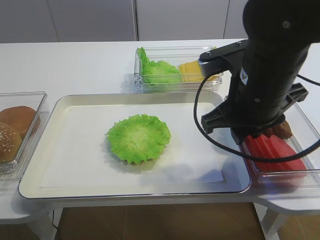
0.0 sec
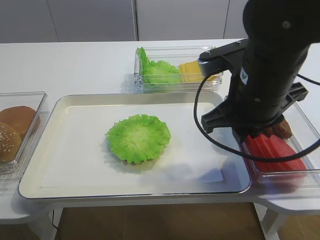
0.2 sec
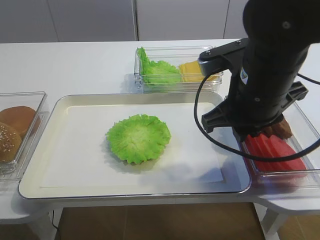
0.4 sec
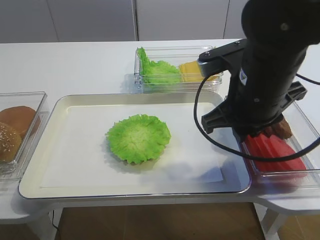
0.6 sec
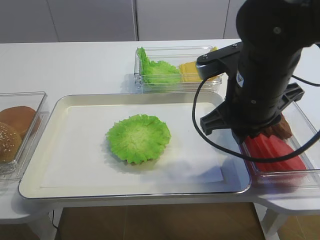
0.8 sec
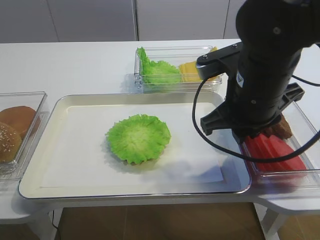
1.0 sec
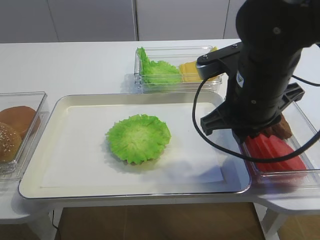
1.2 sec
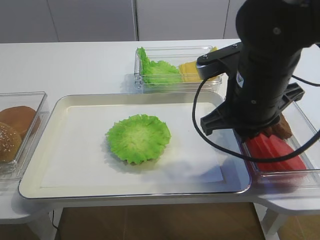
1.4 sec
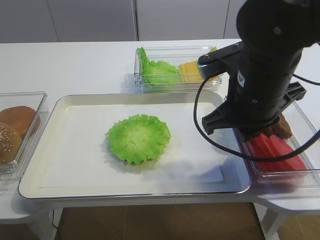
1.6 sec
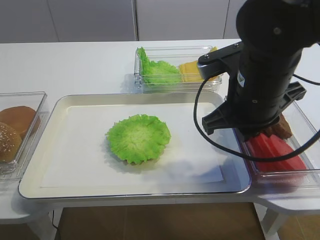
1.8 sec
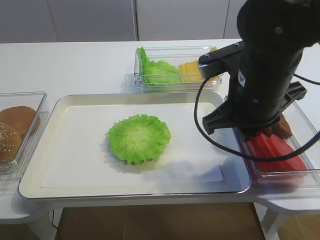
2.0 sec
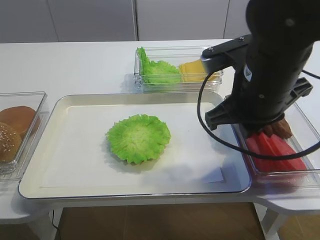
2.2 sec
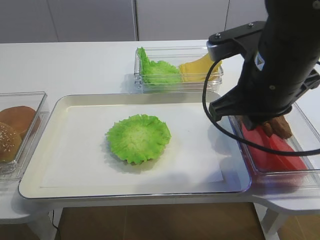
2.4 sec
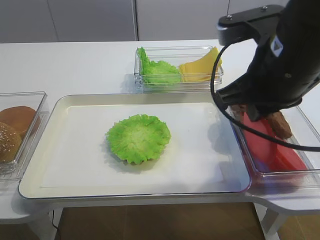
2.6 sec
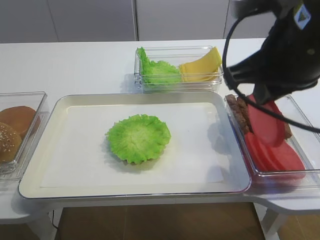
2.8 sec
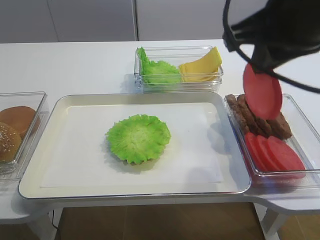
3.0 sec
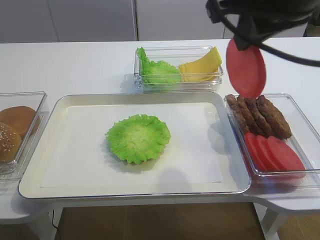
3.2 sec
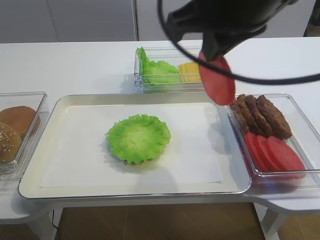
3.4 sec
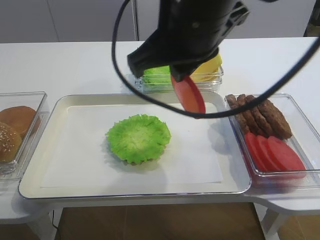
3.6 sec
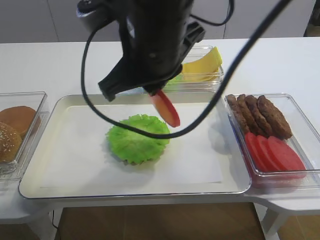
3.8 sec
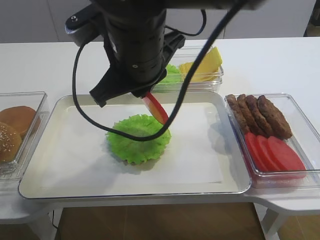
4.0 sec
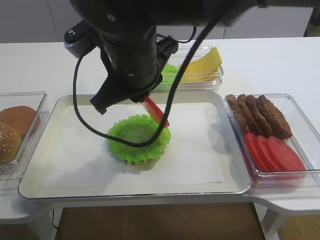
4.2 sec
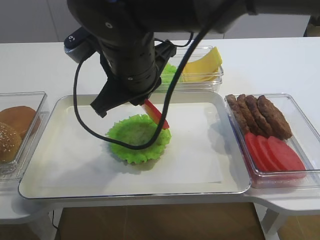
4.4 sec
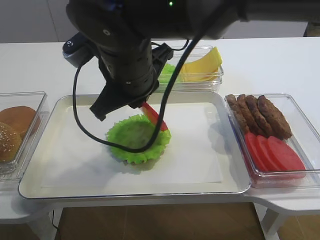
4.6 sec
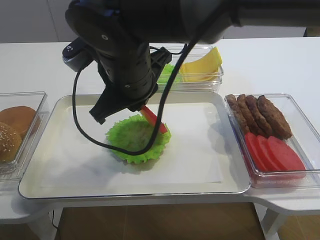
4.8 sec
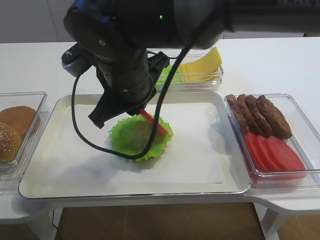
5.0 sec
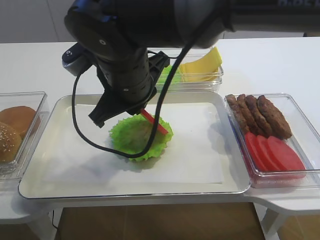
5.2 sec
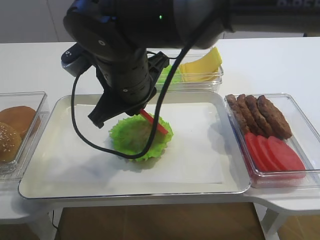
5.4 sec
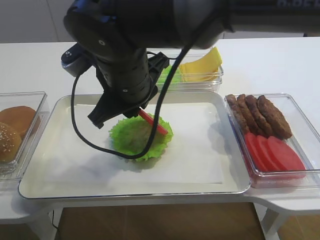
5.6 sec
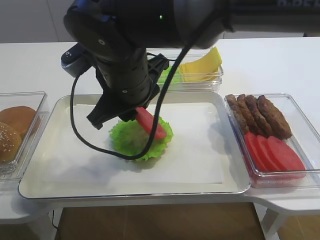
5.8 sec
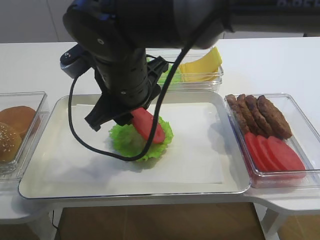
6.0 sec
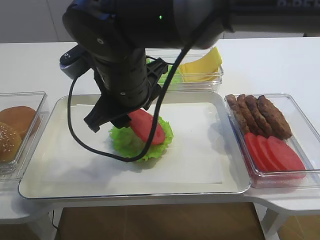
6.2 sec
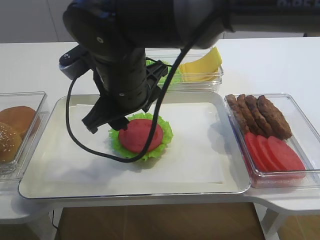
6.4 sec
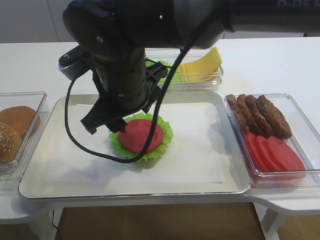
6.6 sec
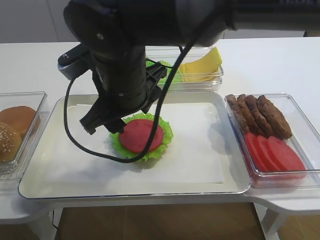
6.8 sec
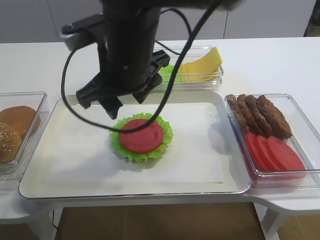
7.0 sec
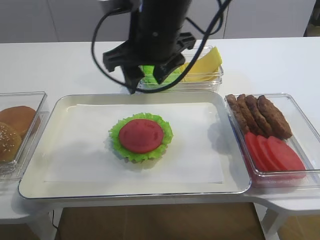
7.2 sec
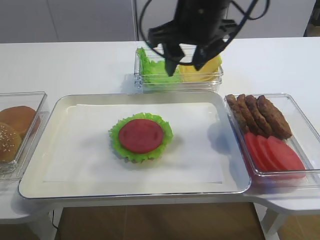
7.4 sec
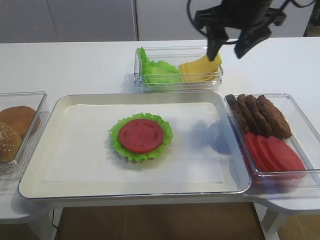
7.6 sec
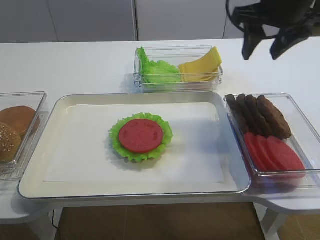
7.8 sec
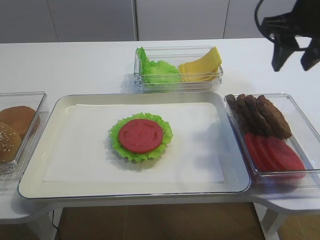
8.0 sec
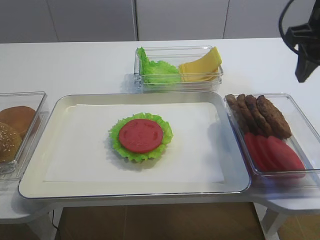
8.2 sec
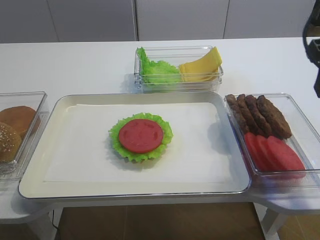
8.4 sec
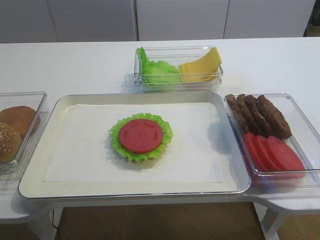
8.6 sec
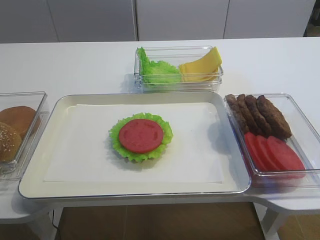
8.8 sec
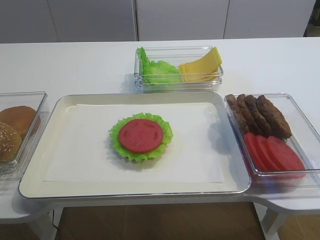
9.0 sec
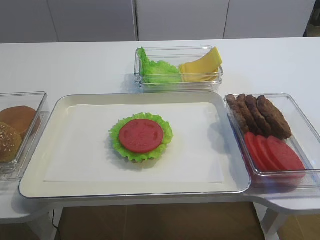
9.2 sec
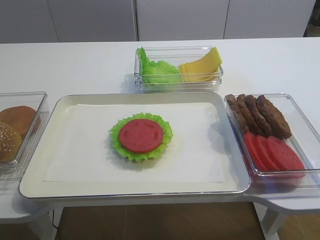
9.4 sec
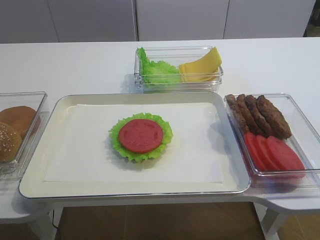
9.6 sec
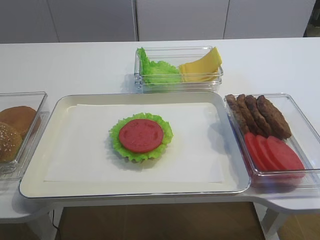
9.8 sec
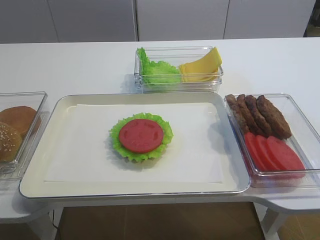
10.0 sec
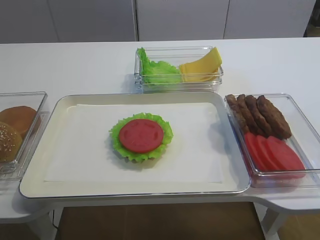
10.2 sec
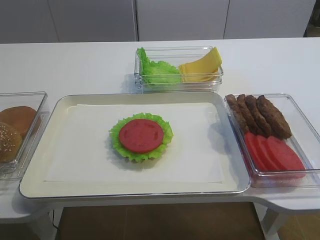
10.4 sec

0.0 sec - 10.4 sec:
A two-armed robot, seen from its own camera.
Step, 0.0 sec - 2.6 sec: Pick up the tomato slice with the right gripper.
Step, 2.8 sec - 7.4 sec: Place the tomato slice on the lettuce leaf with the right gripper.
0.0 sec - 1.4 sec: Neither gripper changes place.
1.4 sec - 3.0 sec: The right gripper is displaced upward by approximately 10 cm.
3.0 sec - 4.4 sec: The right gripper is displaced to the left and downward by approximately 20 cm.
4.4 sec - 6.0 sec: The right gripper opens up.
6.0 sec - 7.4 sec: The right gripper goes roughly 15 cm to the right, forward and upward.
7.4 sec - 9.0 sec: The right gripper goes some 30 cm backward and to the right.
9.0 sec - 10.4 sec: The right gripper is displaced backward and downward by some 15 cm.

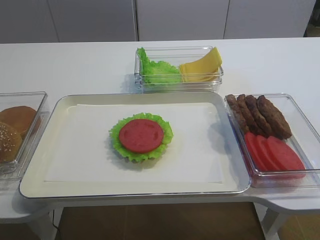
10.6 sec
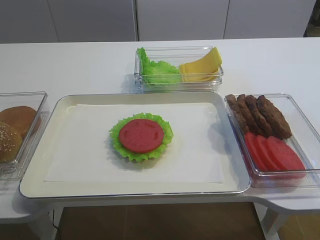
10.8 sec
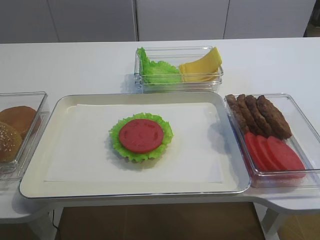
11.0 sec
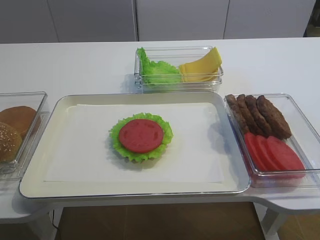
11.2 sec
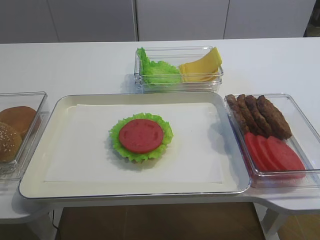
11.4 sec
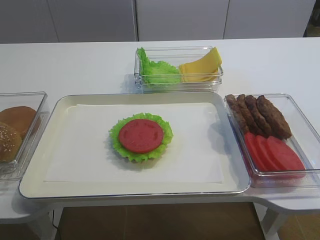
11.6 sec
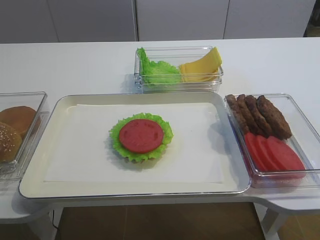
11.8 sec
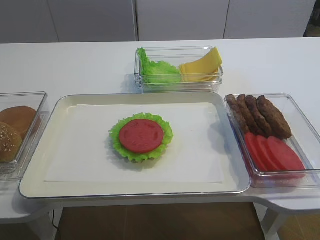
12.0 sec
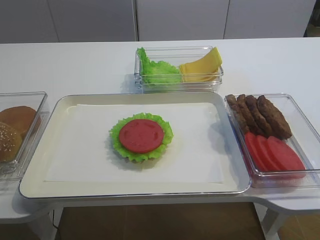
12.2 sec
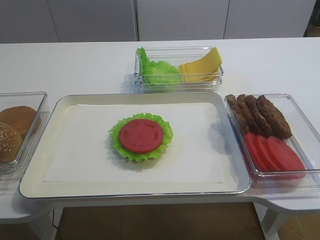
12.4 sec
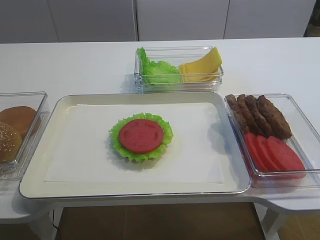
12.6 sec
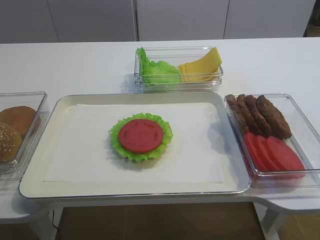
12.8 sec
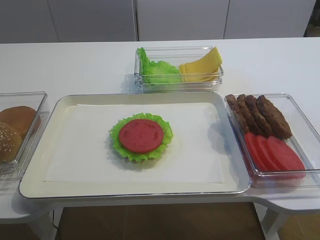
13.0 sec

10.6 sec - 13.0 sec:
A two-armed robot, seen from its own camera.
10.6 sec - 13.0 sec: Both grippers stay about where they are.

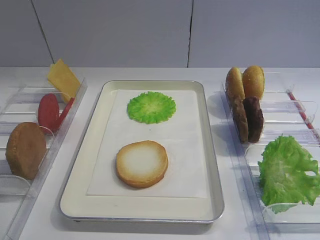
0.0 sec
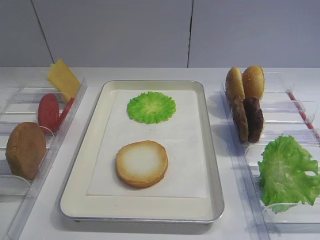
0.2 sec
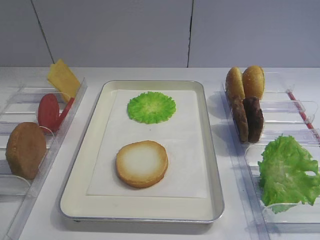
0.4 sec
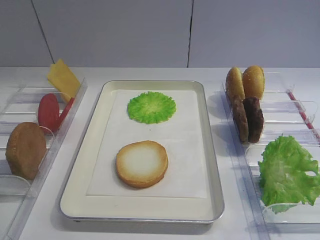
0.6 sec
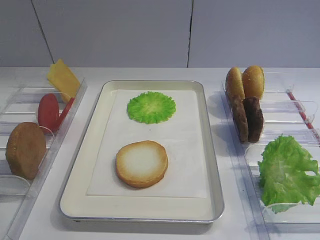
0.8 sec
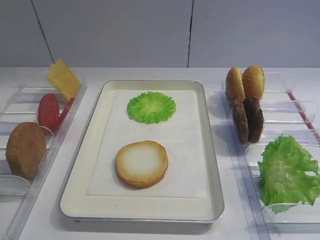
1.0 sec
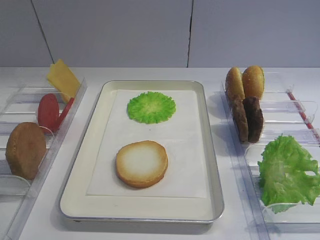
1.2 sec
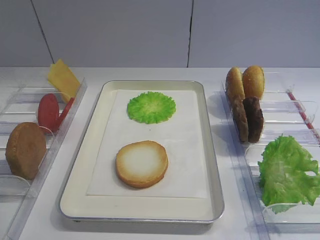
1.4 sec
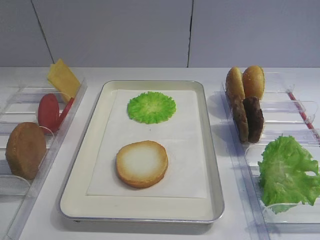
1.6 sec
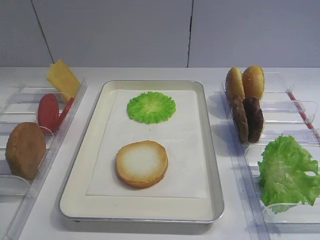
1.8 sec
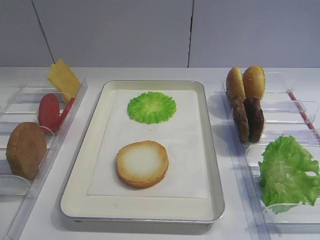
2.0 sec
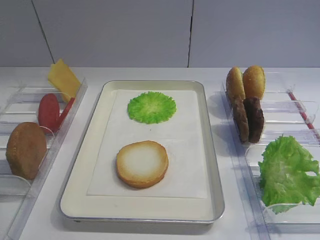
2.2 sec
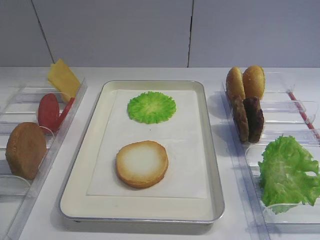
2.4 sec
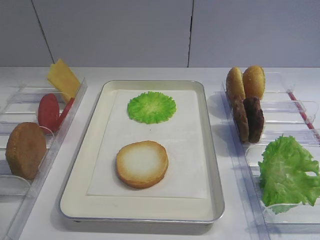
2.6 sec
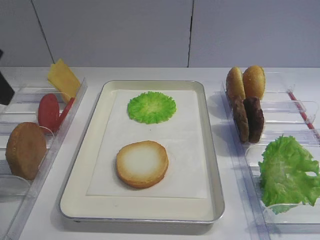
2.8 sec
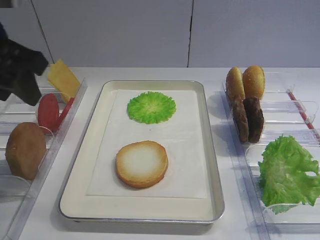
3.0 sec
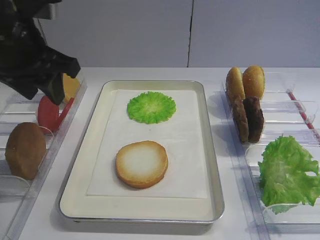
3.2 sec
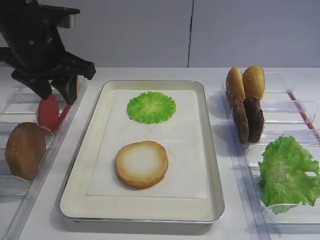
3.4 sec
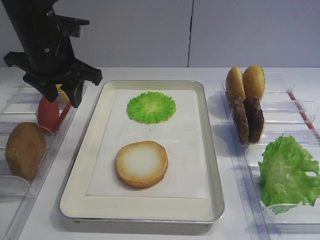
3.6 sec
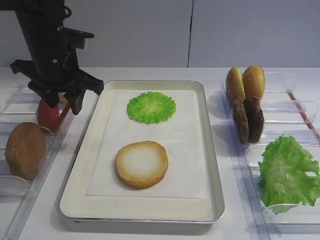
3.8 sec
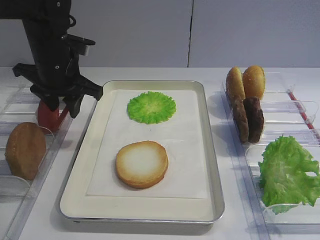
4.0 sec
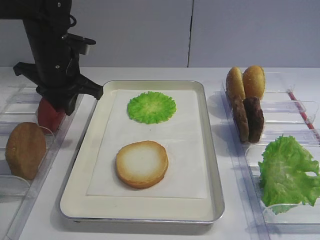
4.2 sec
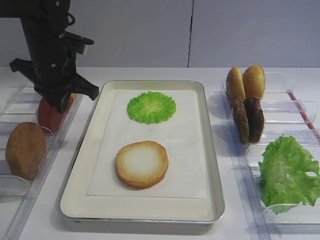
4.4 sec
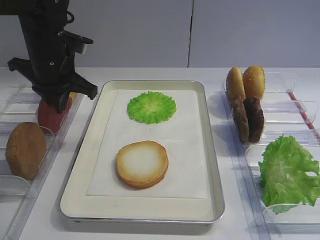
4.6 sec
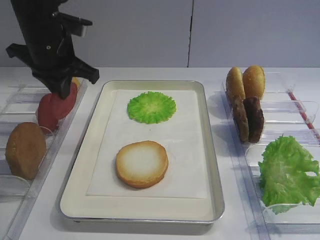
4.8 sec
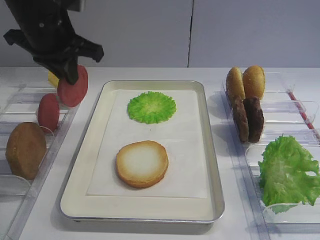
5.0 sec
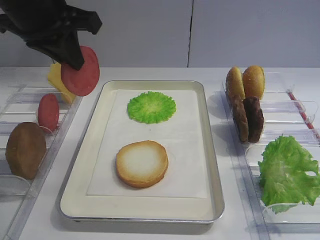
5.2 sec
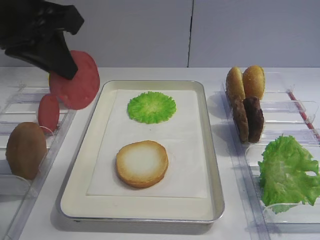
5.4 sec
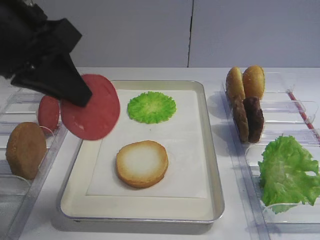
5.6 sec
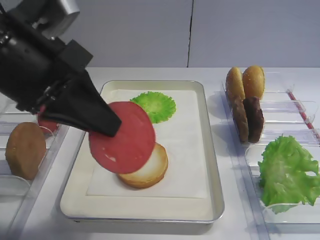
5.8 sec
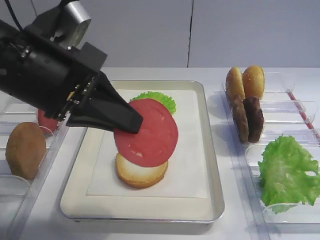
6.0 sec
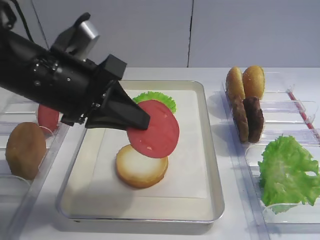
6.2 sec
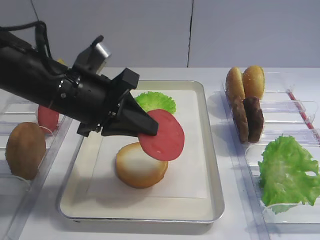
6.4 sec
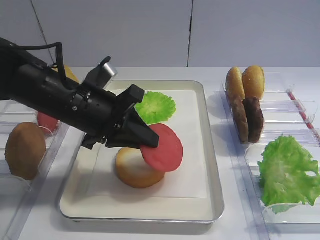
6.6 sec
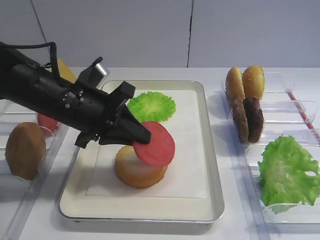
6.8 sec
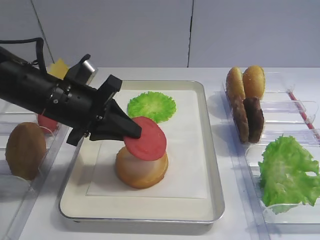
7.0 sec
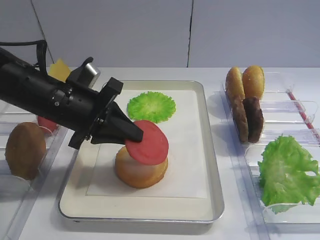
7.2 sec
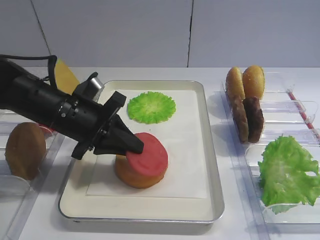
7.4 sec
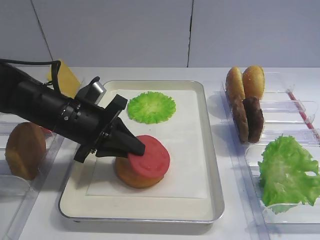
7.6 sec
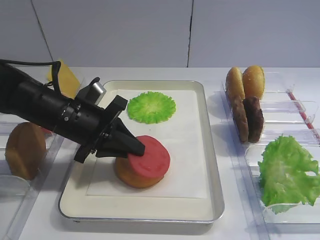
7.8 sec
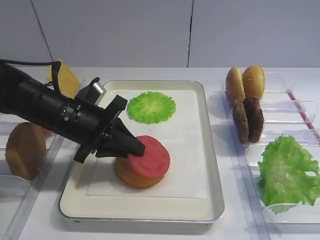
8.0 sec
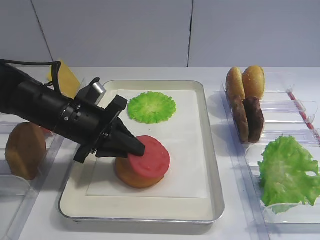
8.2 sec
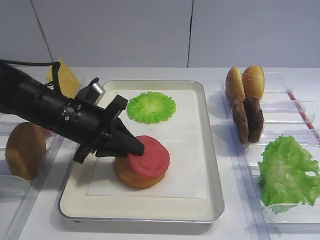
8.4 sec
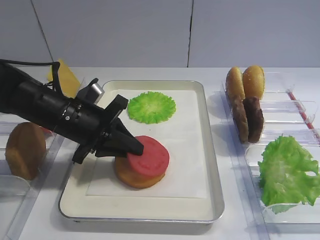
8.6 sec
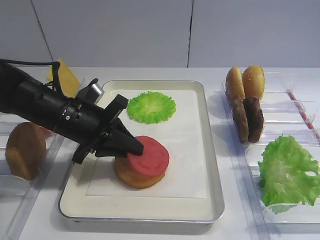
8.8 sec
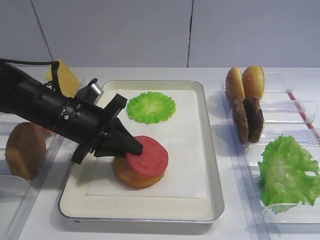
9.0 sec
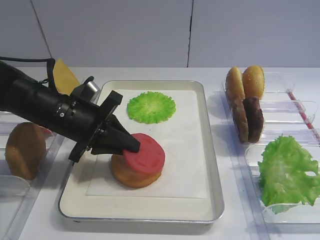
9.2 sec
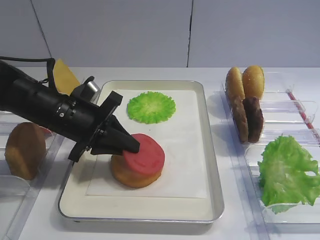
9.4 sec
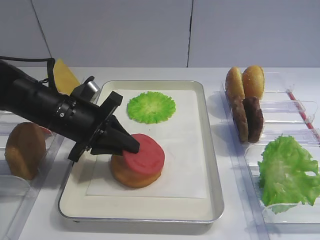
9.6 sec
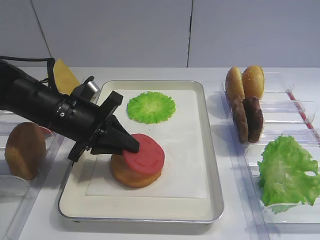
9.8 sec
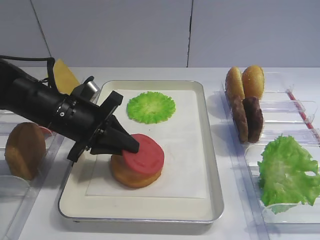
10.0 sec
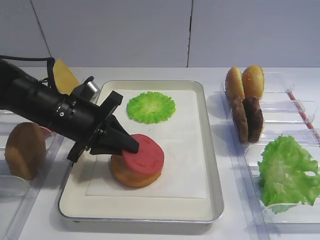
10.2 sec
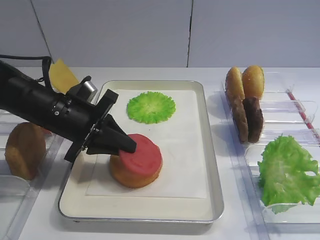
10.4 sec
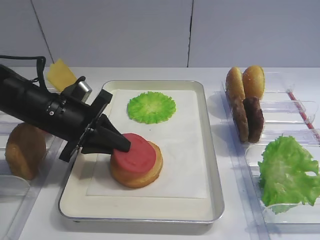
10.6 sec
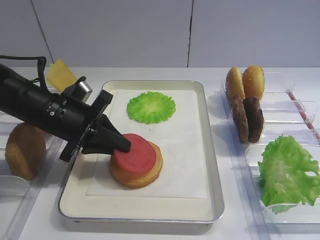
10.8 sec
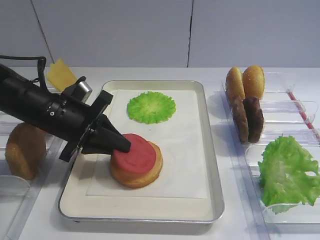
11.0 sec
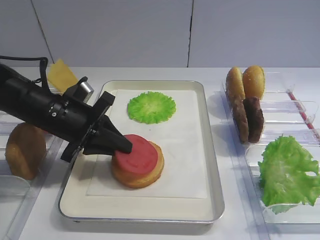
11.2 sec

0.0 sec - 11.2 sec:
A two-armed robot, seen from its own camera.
Step, 0.0 sec - 4.8 sec: Pick up the tomato slice with the left gripper.
1.6 sec - 3.2 sec: The left gripper heads forward, covering roughly 30 cm.
3.2 sec - 4.8 sec: The left gripper travels forward by some 10 cm, and closes up.
4.8 sec - 6.4 sec: The left gripper shifts about 10 cm backward and to the right.
6.4 sec - 8.0 sec: The left gripper travels downward by some 10 cm.
8.0 sec - 9.6 sec: Both grippers stay put.
9.6 sec - 11.2 sec: Neither gripper changes place.
